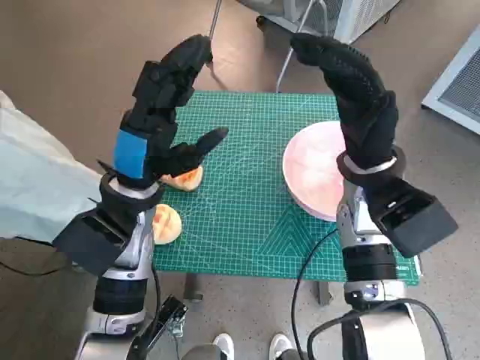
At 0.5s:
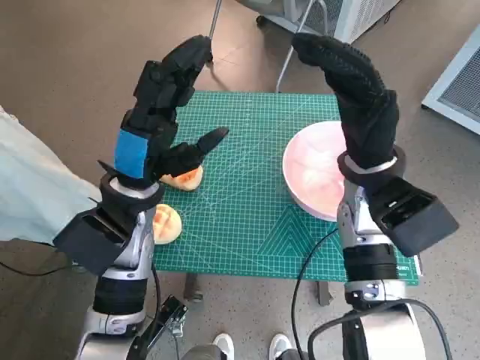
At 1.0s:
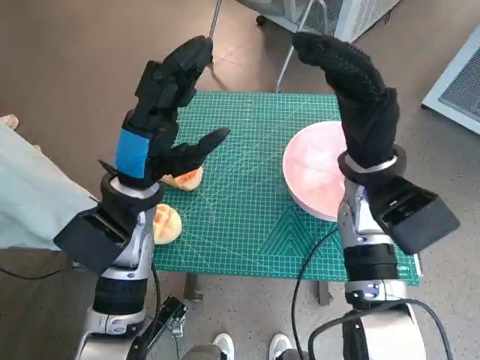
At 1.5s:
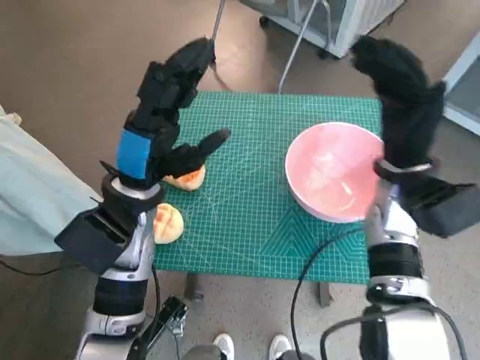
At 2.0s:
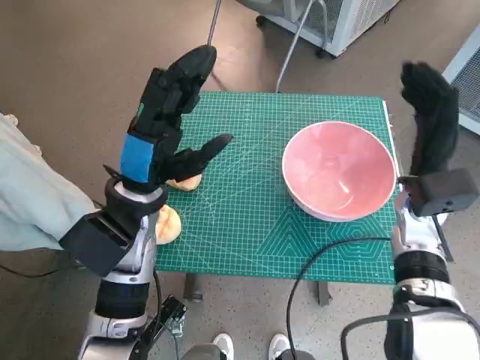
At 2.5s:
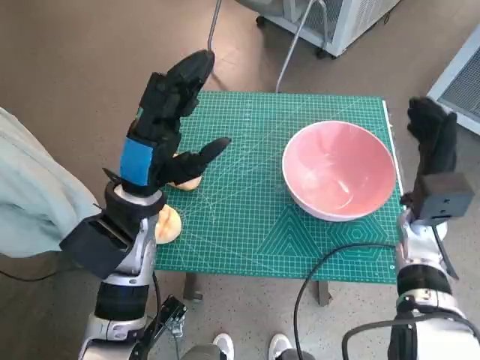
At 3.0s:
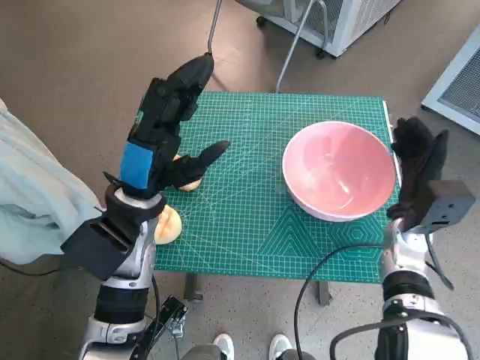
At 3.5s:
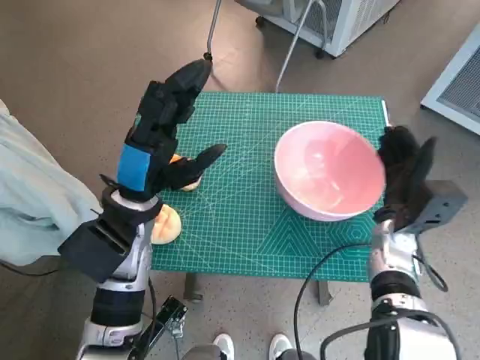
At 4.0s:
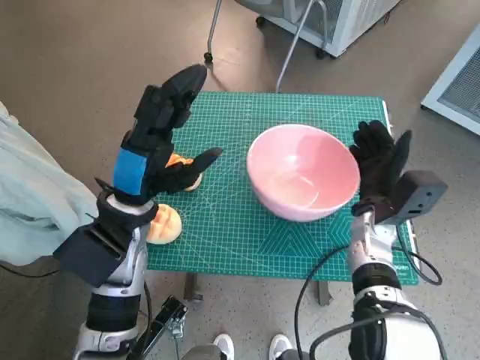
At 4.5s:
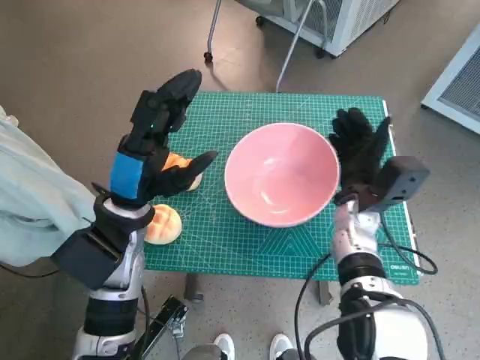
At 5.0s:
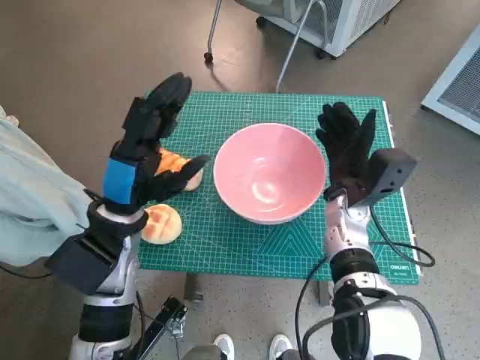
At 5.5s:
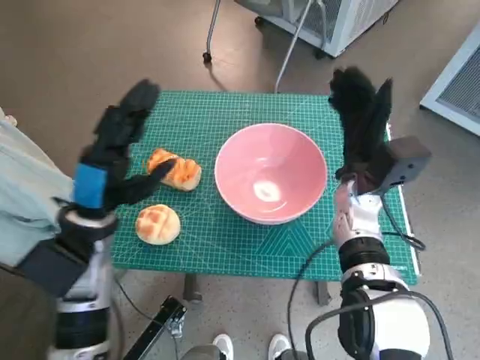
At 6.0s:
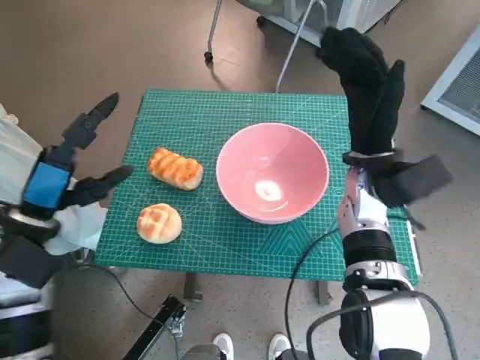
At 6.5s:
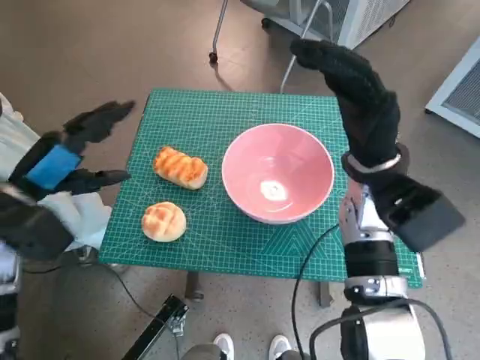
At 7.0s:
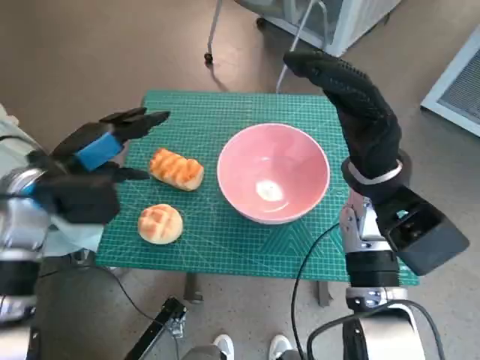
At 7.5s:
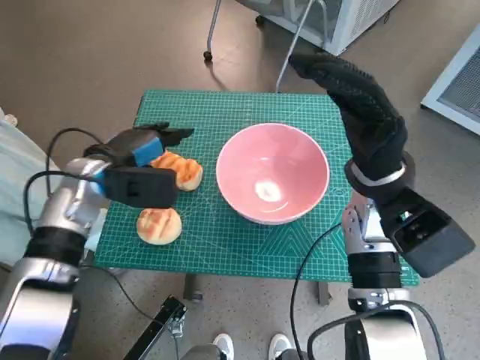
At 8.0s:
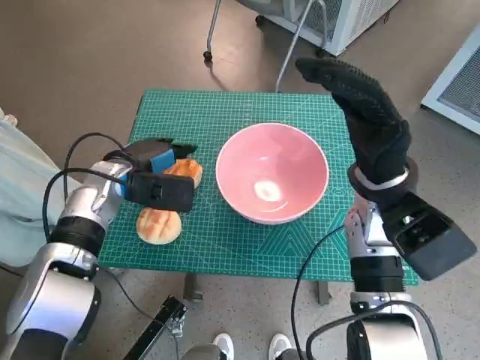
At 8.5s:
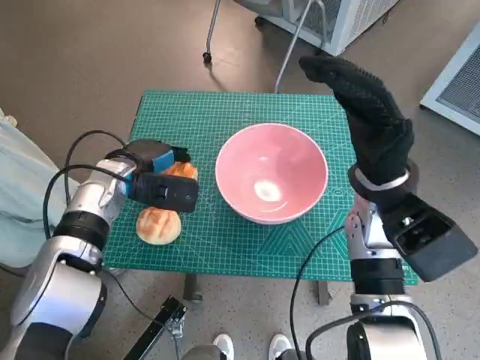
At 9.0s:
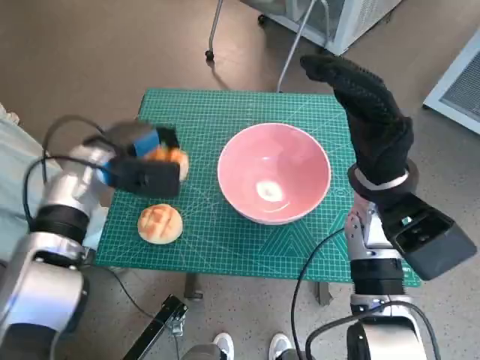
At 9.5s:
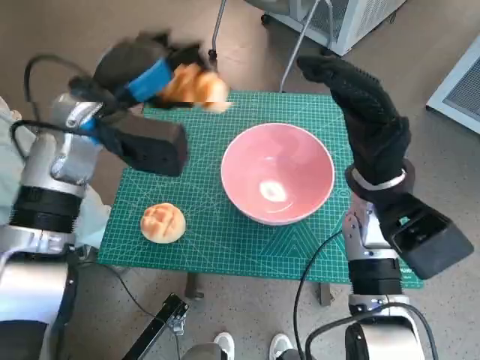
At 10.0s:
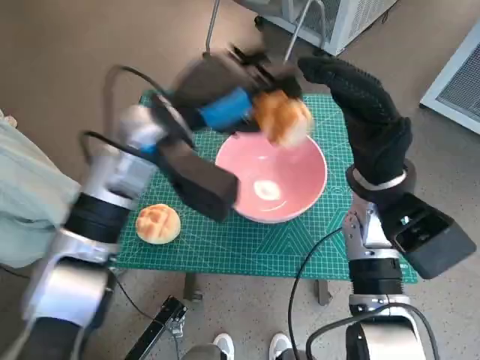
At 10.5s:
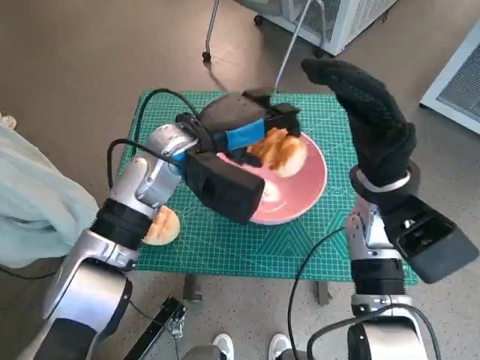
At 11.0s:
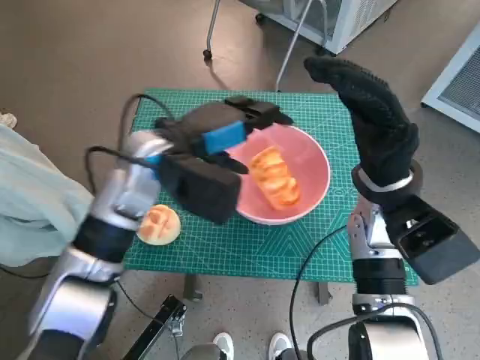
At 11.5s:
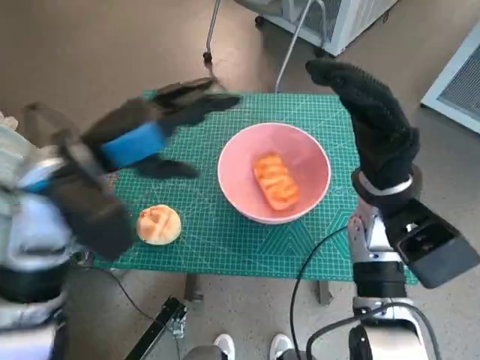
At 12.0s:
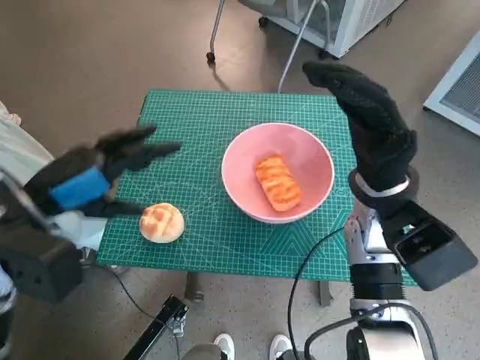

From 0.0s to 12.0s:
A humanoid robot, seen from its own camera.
Task of the whole recording: Push the bowl to the center of the table and put the bread into the bowl.
Step, from 0.0s to 4.5s: Move the pink bowl to the center of table with right hand.
Step, from 5.0s to 8.5s: Grasp the long bread with left hand.
Step, from 9.0s to 10.5s: Place the long bread in pink bowl with left hand.
From 2.0s to 4.0s: The right hand moves downward, approximately 5 cm.
From 4.0s to 6.0s: The left hand shifts some 10 cm to the left. Meanwhile the right hand travels upward by about 10 cm.
From 6.0s to 8.0s: The left hand goes approximately 15 cm forward and to the right.
From 8.0s to 10.0s: The left hand travels upward and to the right by some 15 cm.
From 10.0s to 12.0s: The left hand travels to the left and backward by about 15 cm.

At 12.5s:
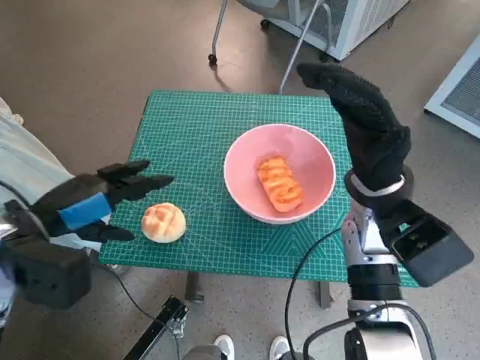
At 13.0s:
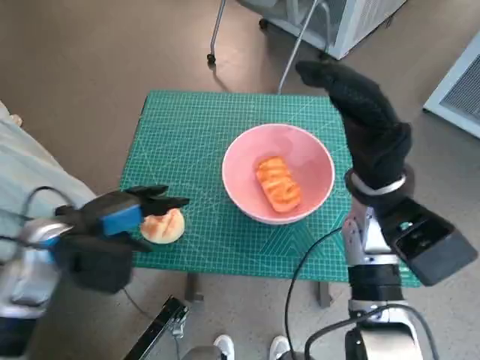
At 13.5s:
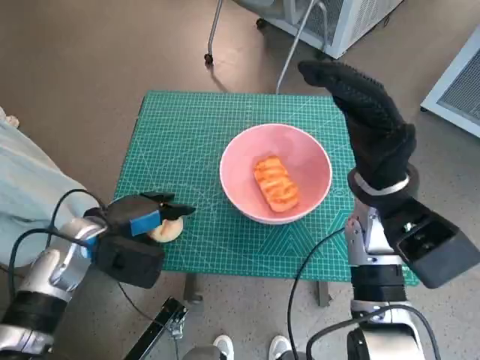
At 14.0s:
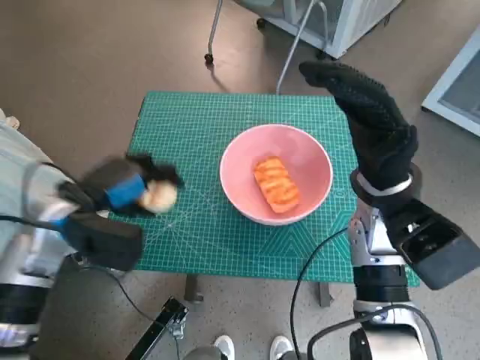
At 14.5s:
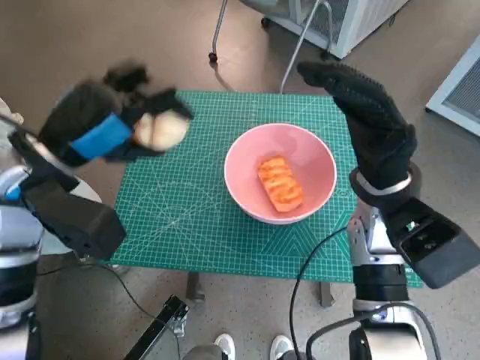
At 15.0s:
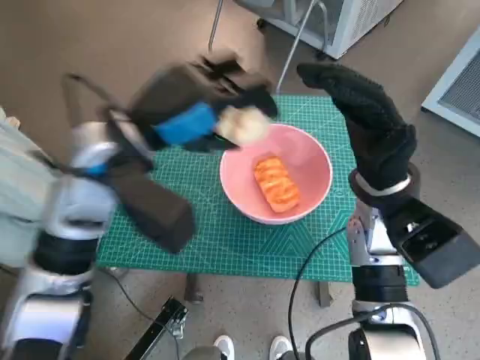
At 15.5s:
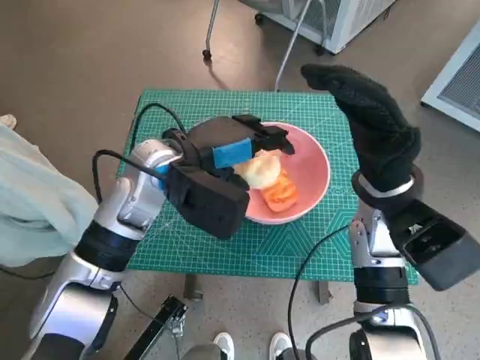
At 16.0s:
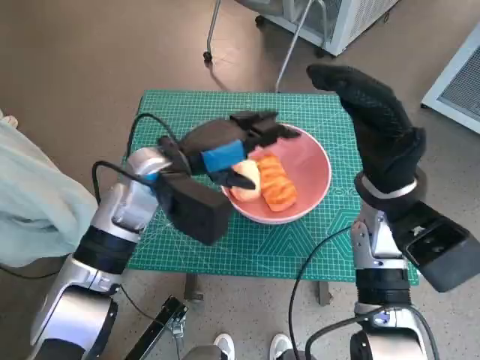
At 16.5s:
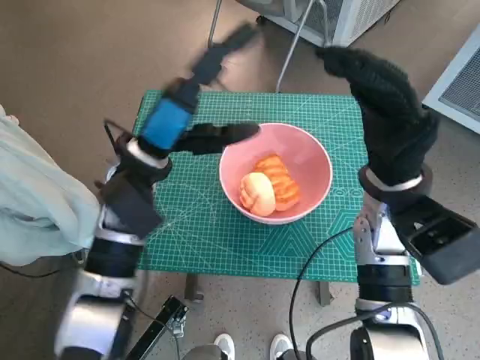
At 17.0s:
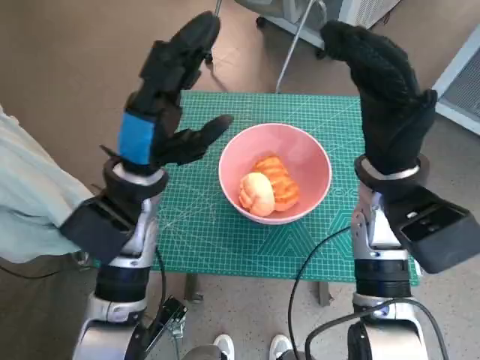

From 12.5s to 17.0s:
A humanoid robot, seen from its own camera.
Task of the whole recording: Push the bowl to the center of the table and put the bread into the bowl.
Step, from 14.0s to 15.5s: Place the round bread in pink bowl with left hand.
From 12.5s to 14.5s: The left hand shifts roughly 5 cm upward.
From 14.5s to 17.0s: The left hand shifts about 10 cm to the right and downward.

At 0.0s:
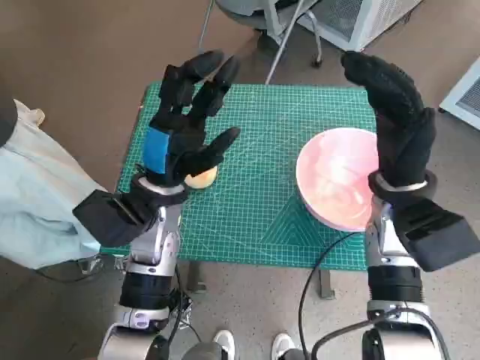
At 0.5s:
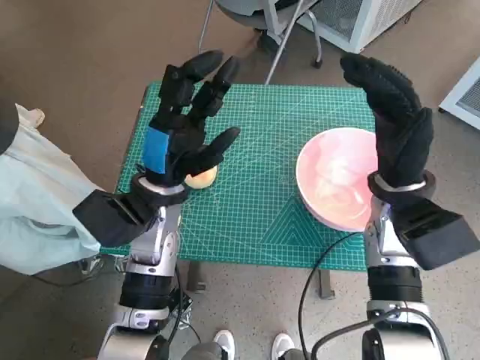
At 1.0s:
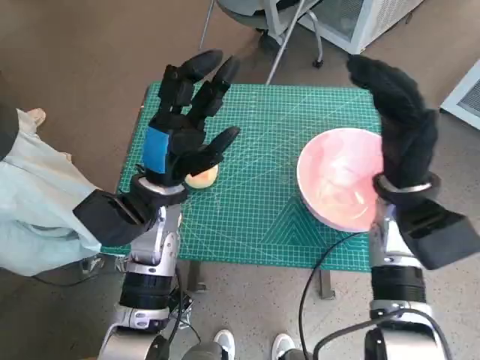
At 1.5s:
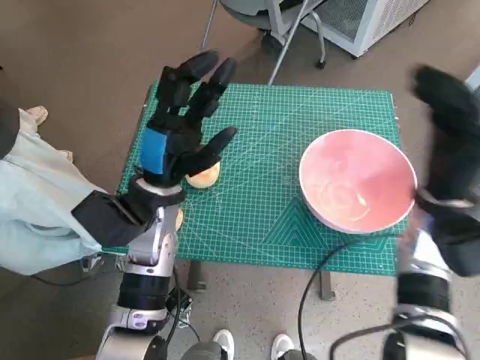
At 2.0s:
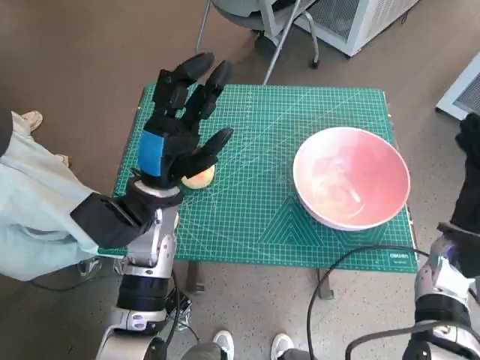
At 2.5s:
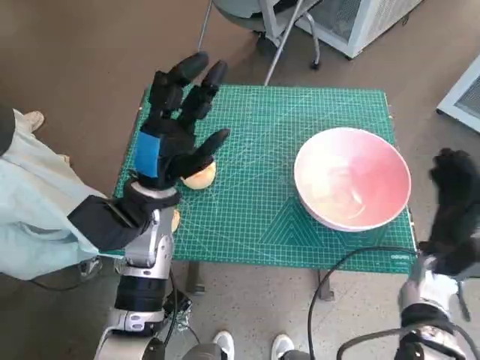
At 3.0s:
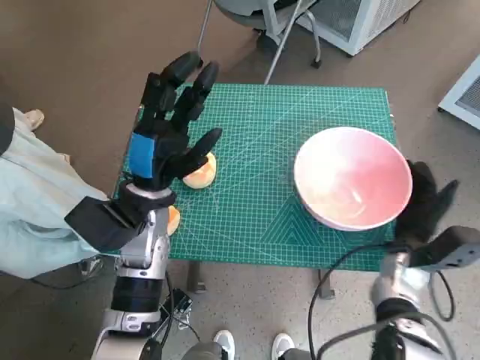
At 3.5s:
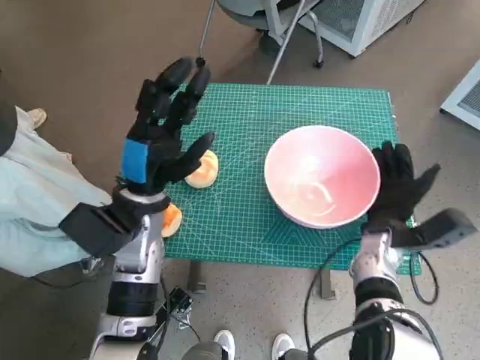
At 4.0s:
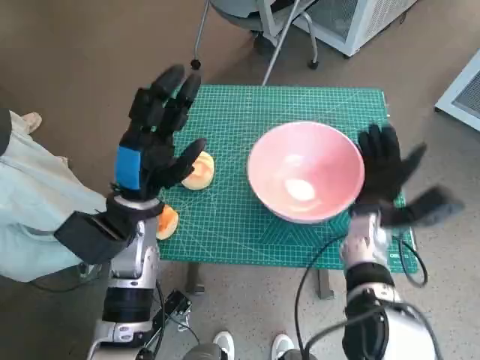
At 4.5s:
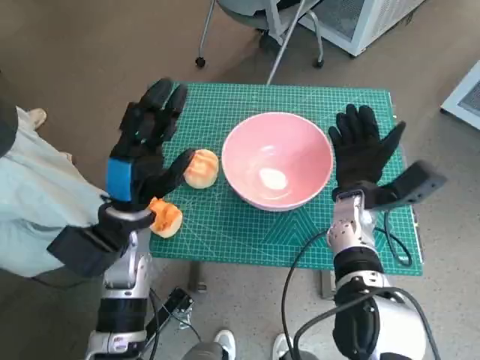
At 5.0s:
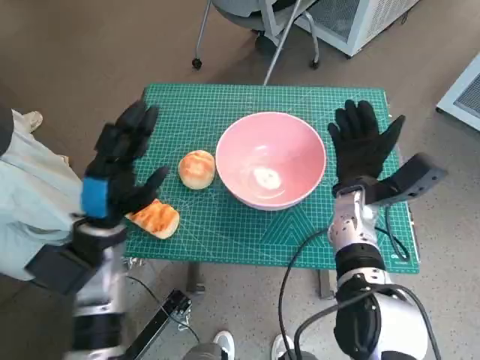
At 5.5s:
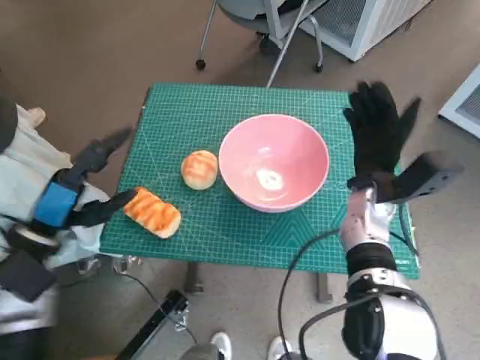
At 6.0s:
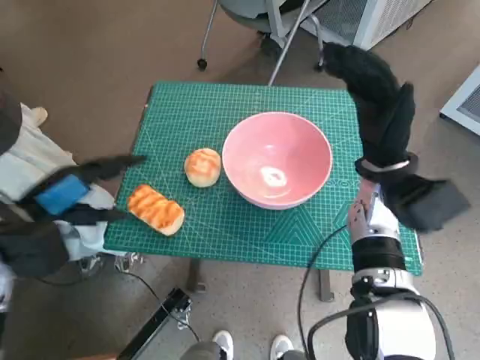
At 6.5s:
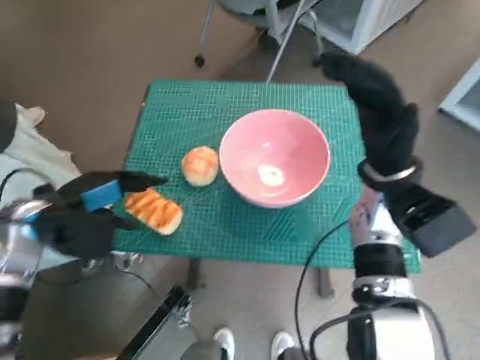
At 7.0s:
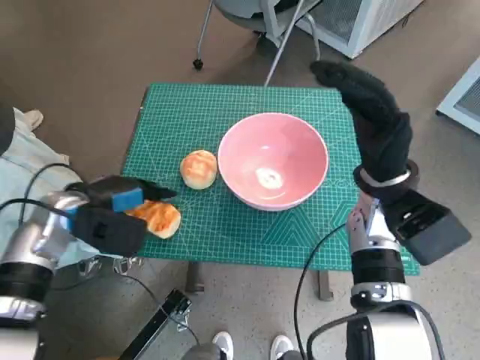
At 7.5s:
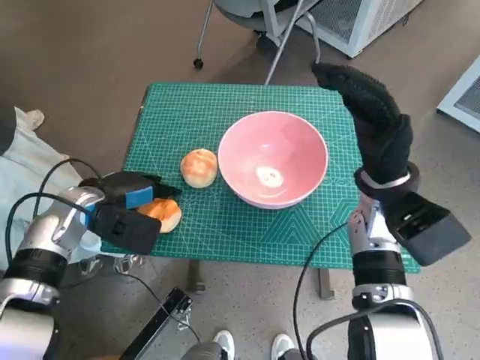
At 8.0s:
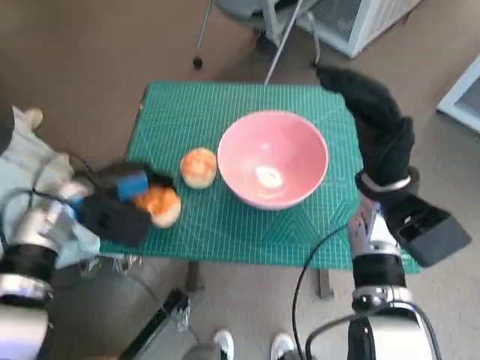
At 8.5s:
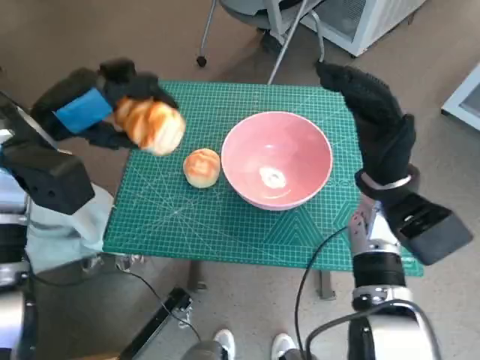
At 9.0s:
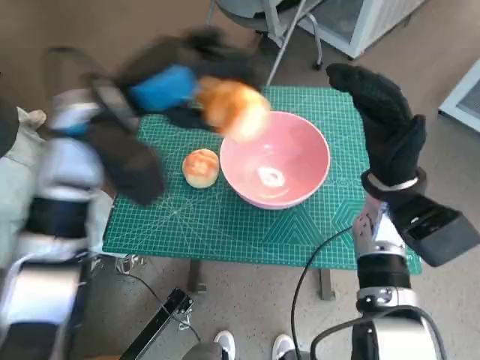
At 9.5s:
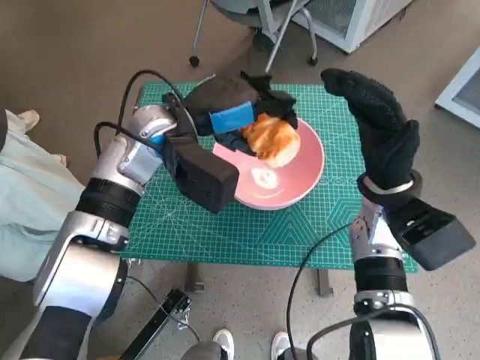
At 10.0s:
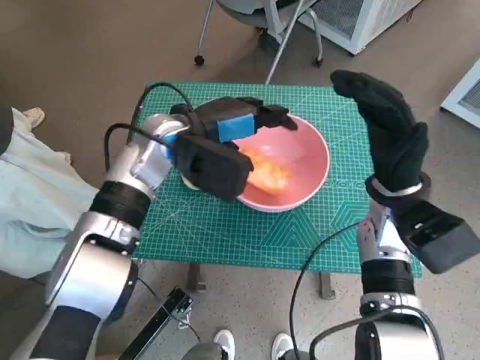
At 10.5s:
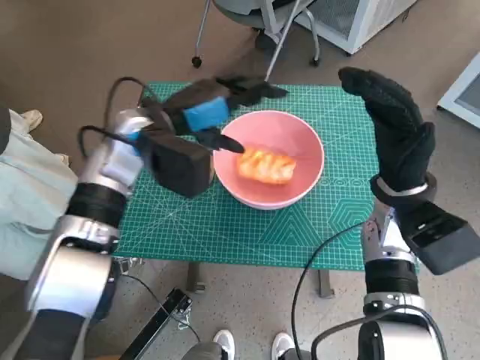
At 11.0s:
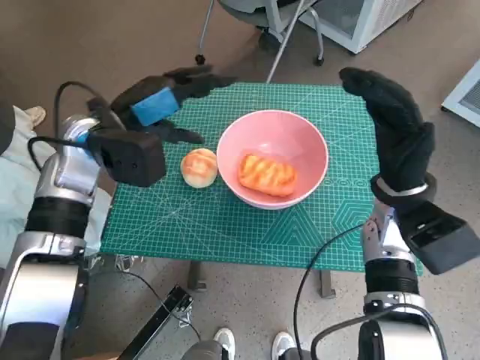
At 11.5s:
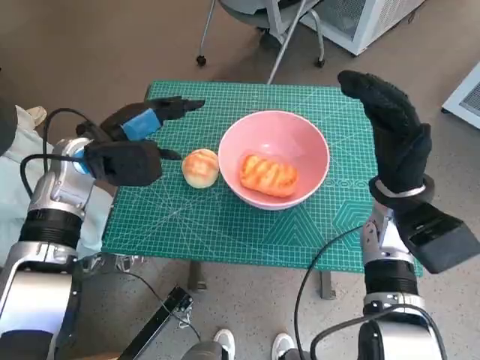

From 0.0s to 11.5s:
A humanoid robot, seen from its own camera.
Task of the whole recording: Push the bowl to the center of the table and put the bread into the bowl.
Step, from 0.0s to 4.5s: Move the pink bowl to the center of table with right hand.
Step, from 5.0s to 7.5s: Grasp the long bread with left hand.
Step, from 8.0s to 10.0s: Place the long bread in pink bowl with left hand.
From 2.0s to 4.0s: The right hand is displaced to the left by approximately 10 cm.
From 4.0s to 6.0s: The left hand is displaced to the left by roughly 15 cm, while the right hand moves upward, some 10 cm.
From 6.0s to 7.5s: The left hand travels forward and downward by approximately 10 cm.
From 7.5s to 9.5s: The left hand goes some 20 cm to the right and upward.
From 9.5s to 11.5s: The left hand shifts about 10 cm to the left.
